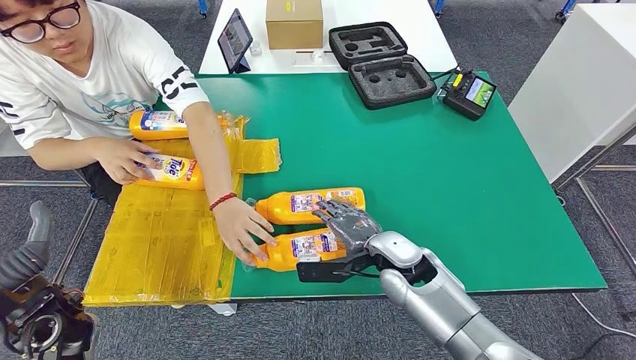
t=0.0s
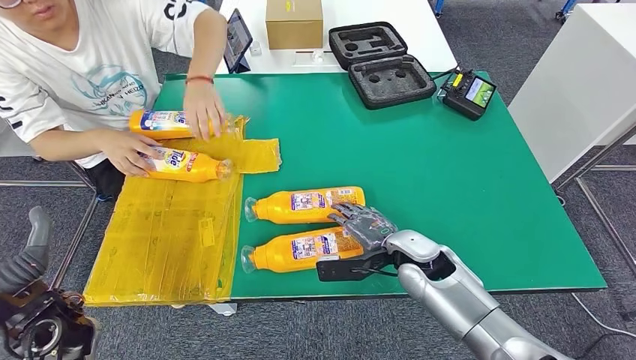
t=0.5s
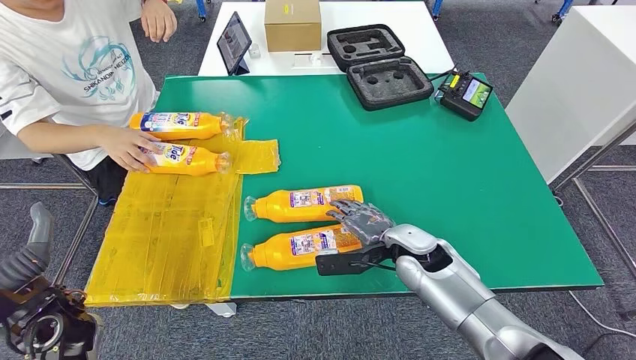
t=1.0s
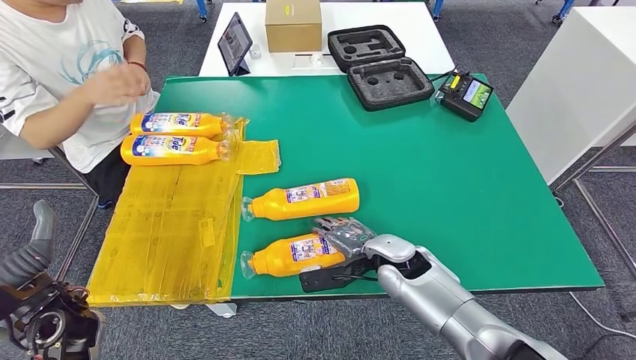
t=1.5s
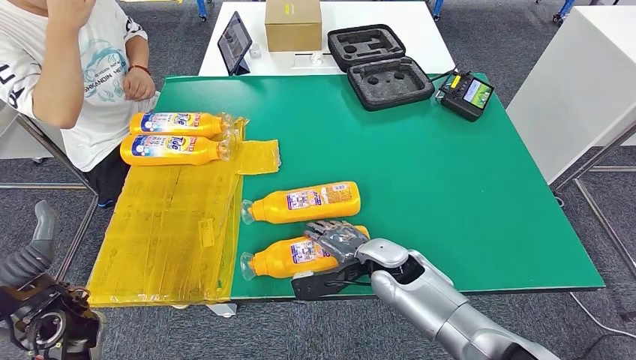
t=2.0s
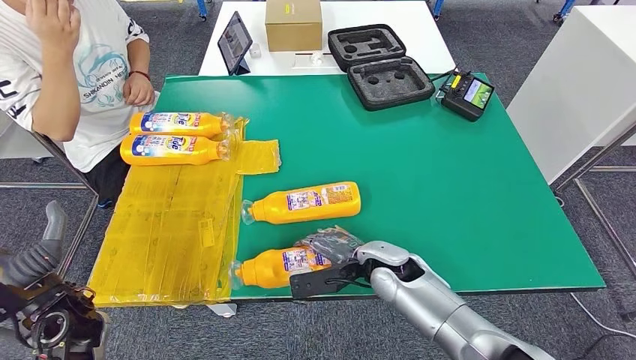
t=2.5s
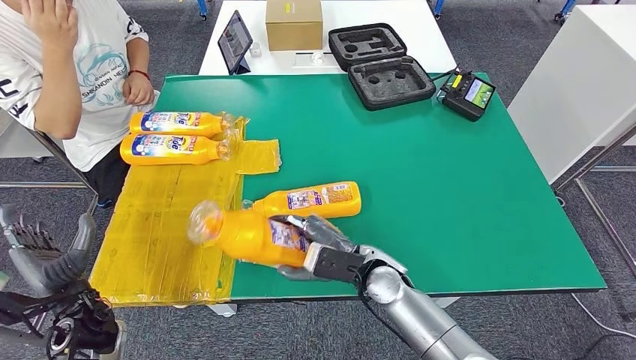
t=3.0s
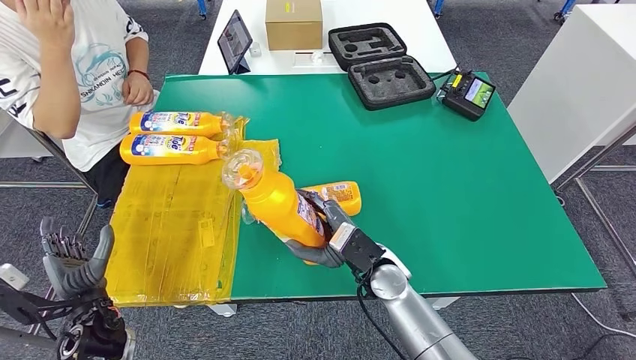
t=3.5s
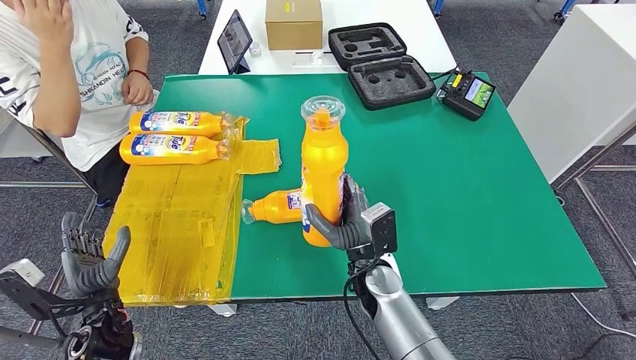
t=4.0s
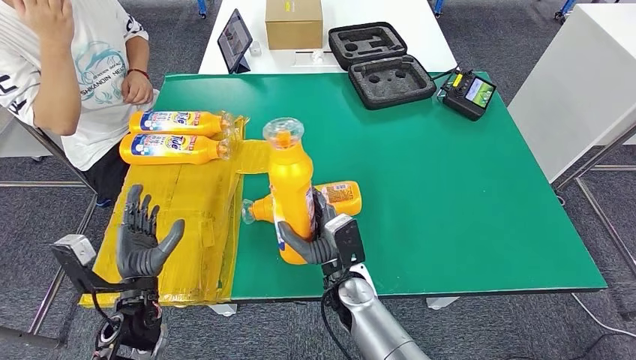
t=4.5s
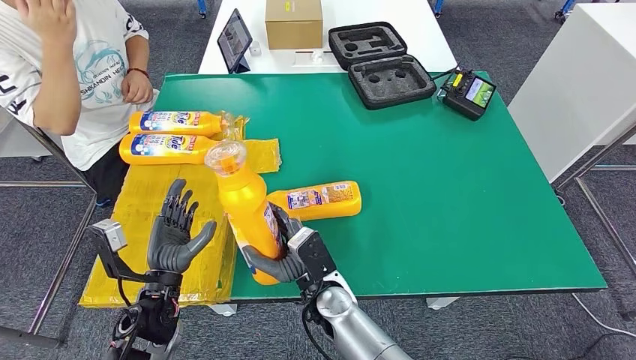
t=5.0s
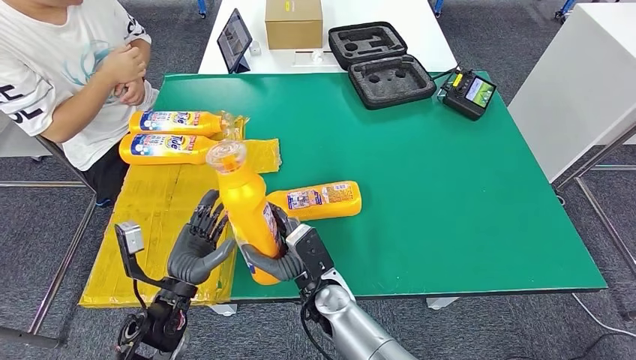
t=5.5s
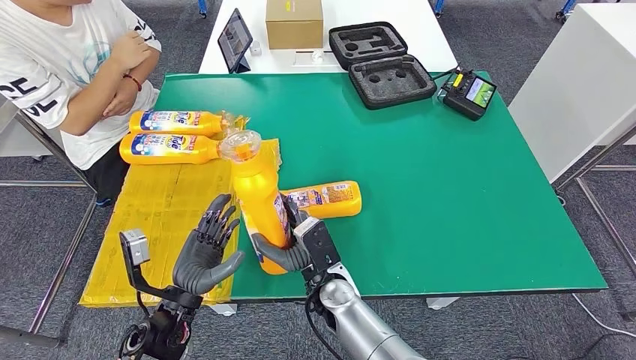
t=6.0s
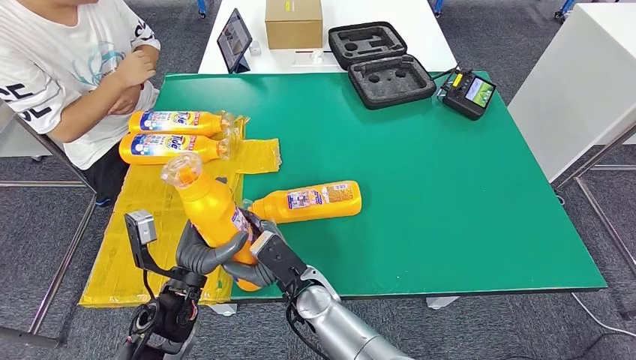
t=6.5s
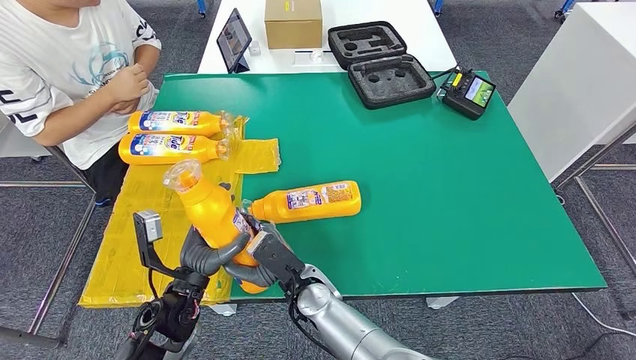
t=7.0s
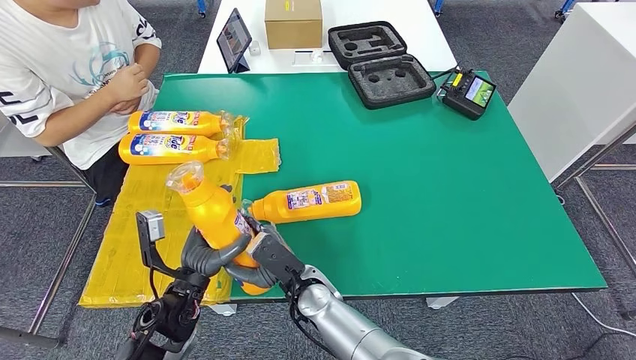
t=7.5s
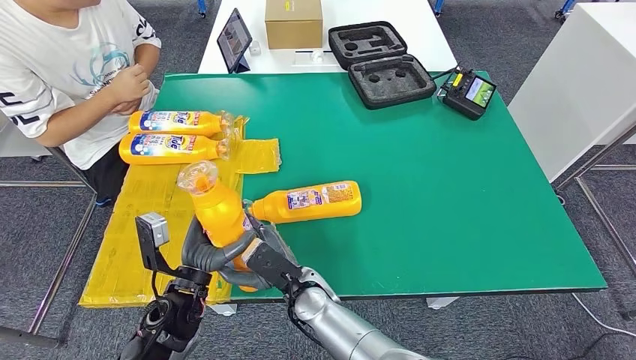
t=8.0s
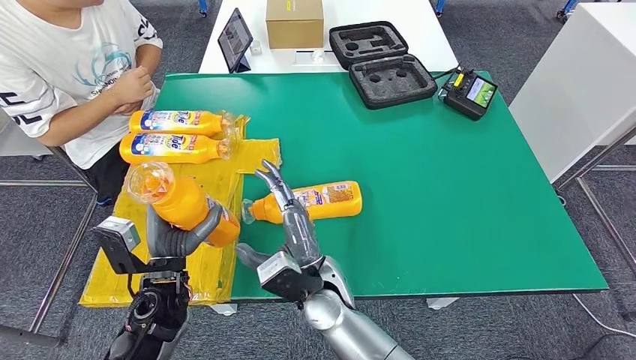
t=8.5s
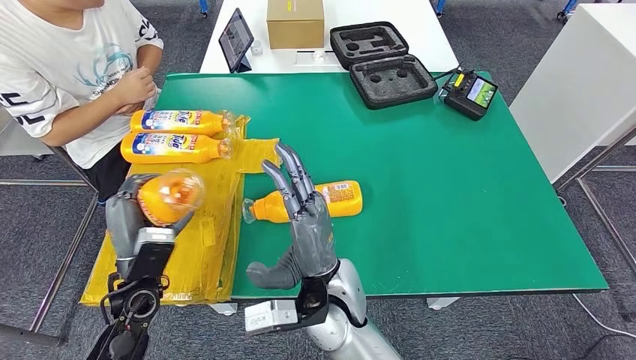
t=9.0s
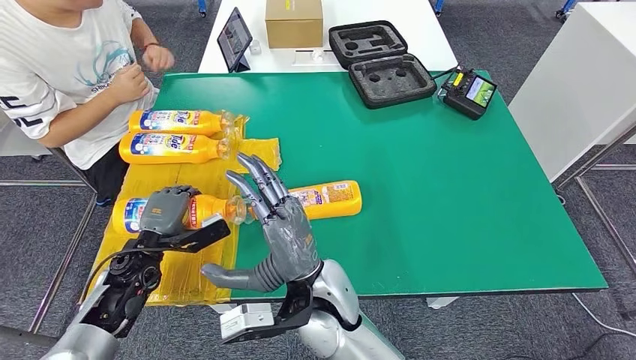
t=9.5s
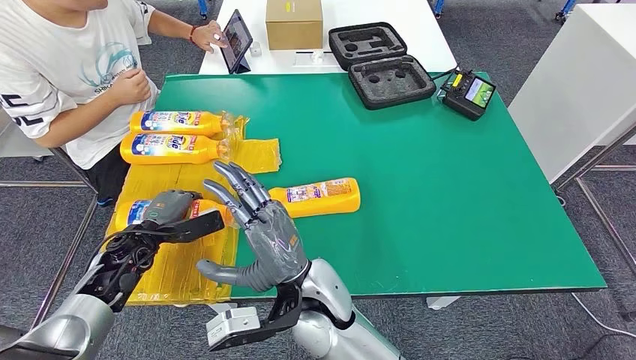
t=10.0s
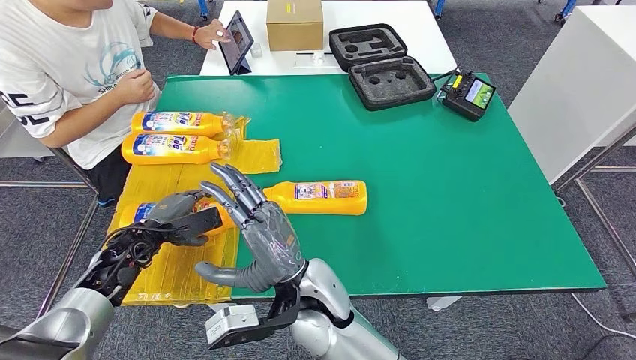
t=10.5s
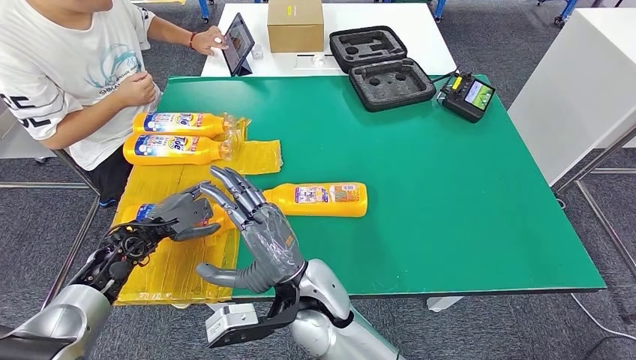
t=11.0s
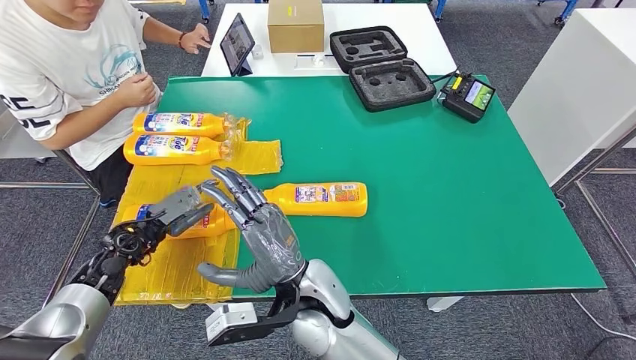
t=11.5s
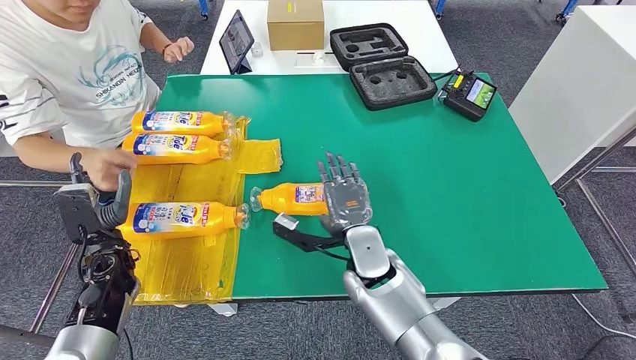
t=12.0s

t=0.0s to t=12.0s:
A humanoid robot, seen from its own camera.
Step, t=1.0s to t=3.5s: Pick up the fast-moving consumer goods bottle from the table.
Step, t=4.0s to t=12.0s: Flip the fast-moving consumer goods bottle to the front side.
t=6.0s to t=8.0s: The hands stay close to where they were, moving slightly.
t=8.0s to t=10.0s: The left hand heads to the left and forward, covering some 15 cm. The right hand shifts roughly 10 cm upward.

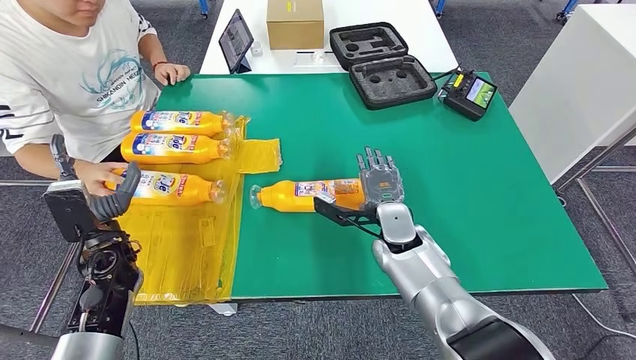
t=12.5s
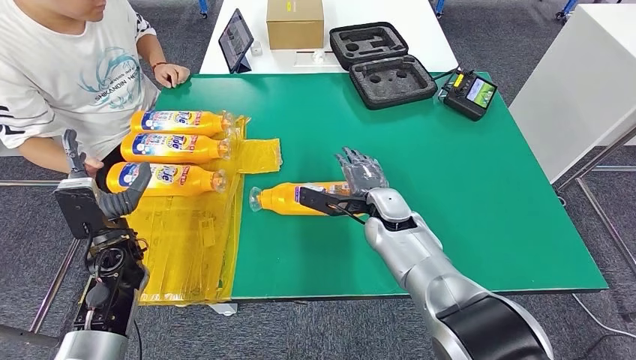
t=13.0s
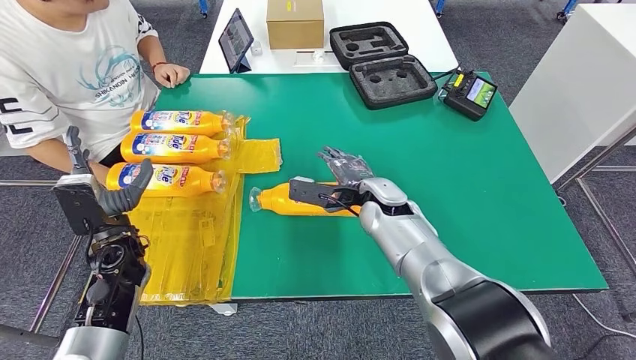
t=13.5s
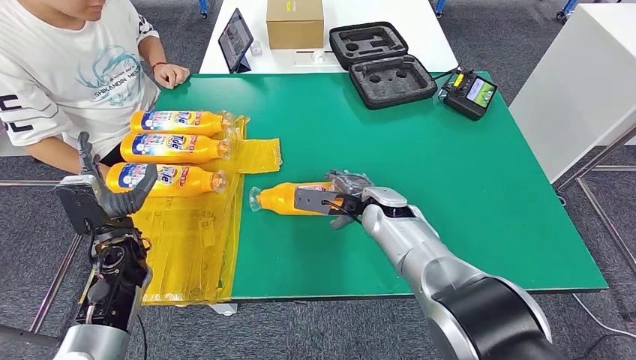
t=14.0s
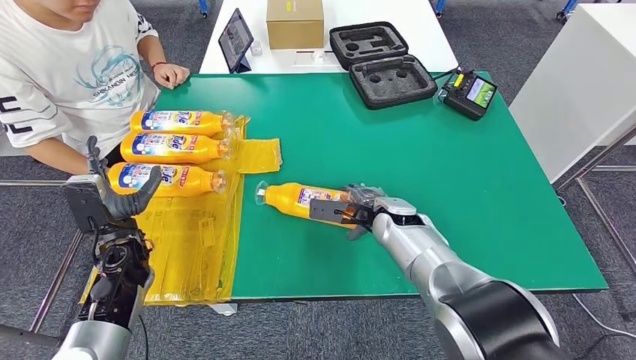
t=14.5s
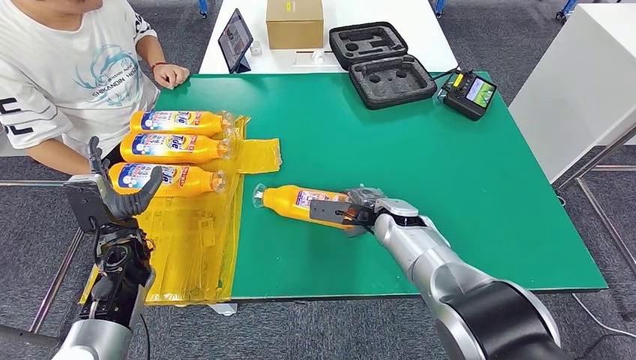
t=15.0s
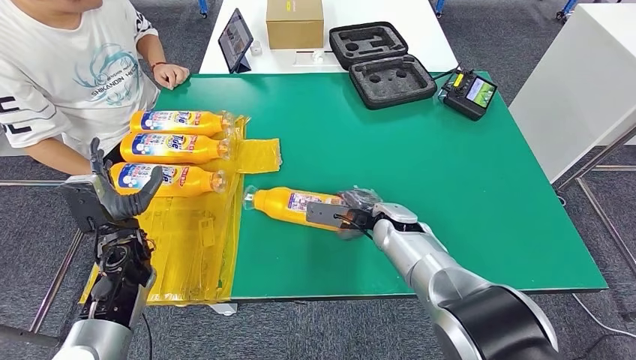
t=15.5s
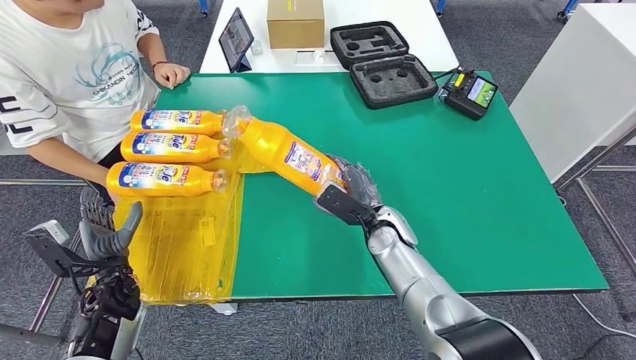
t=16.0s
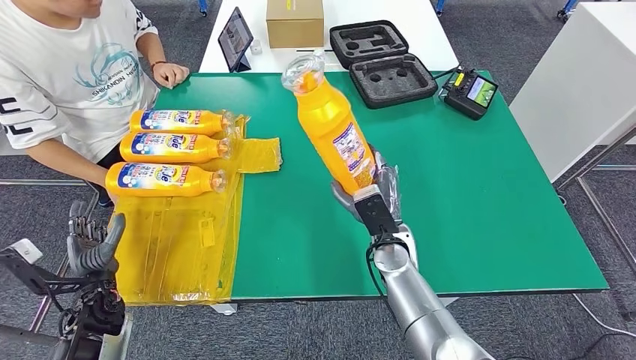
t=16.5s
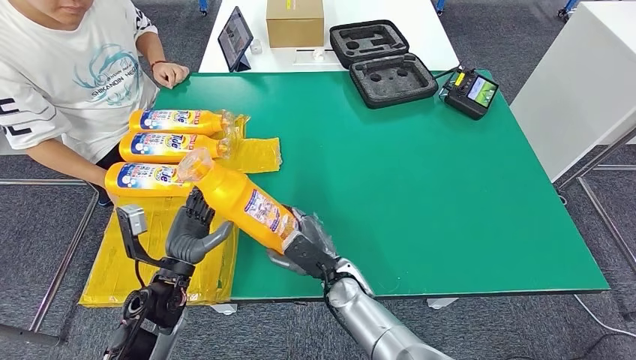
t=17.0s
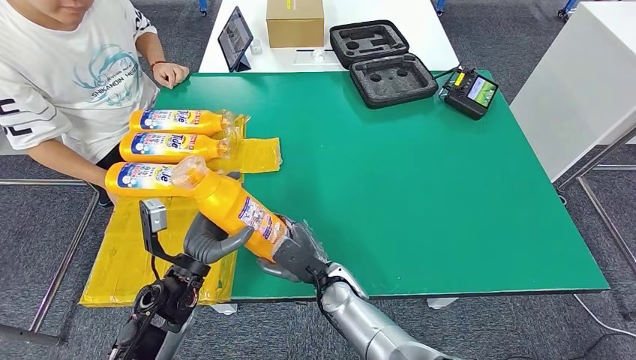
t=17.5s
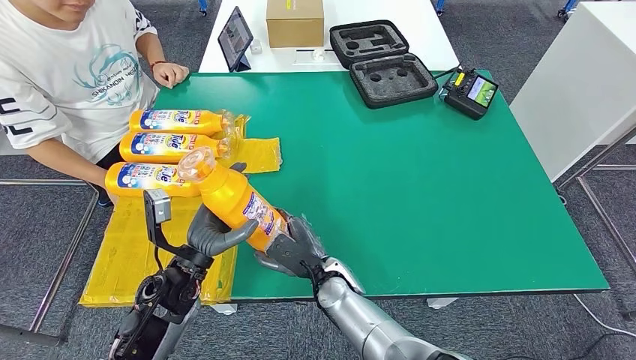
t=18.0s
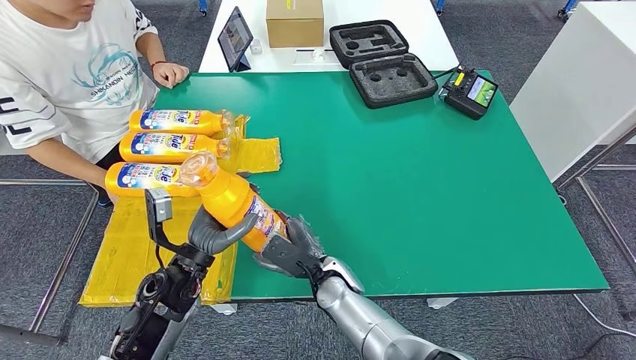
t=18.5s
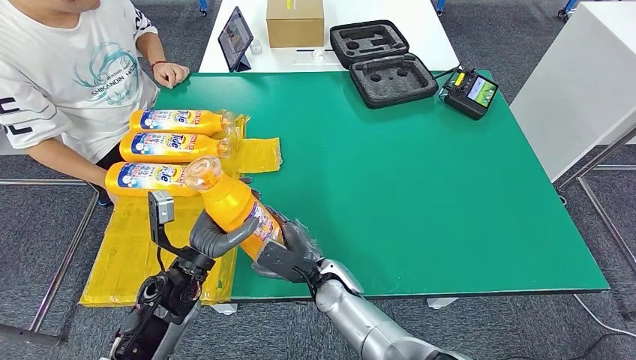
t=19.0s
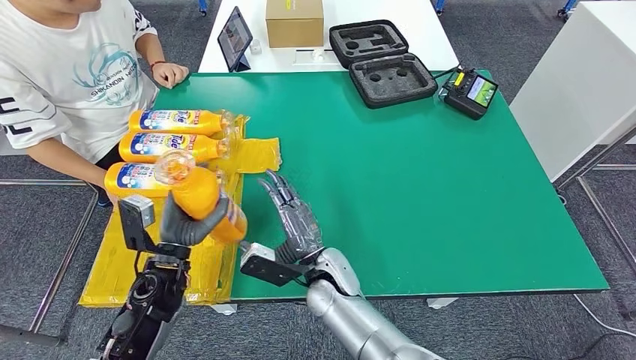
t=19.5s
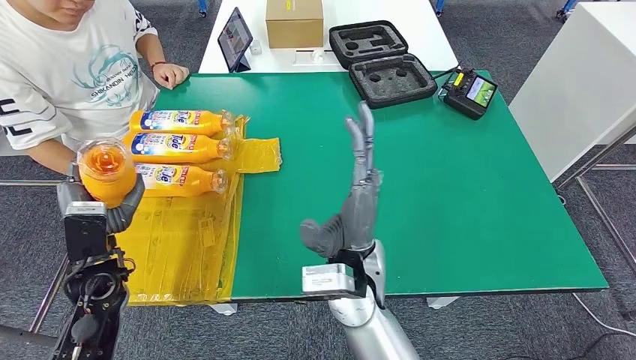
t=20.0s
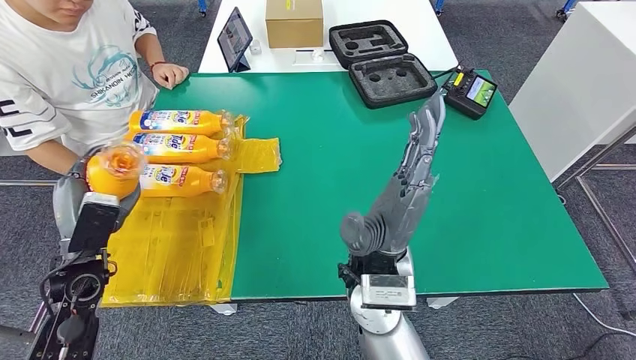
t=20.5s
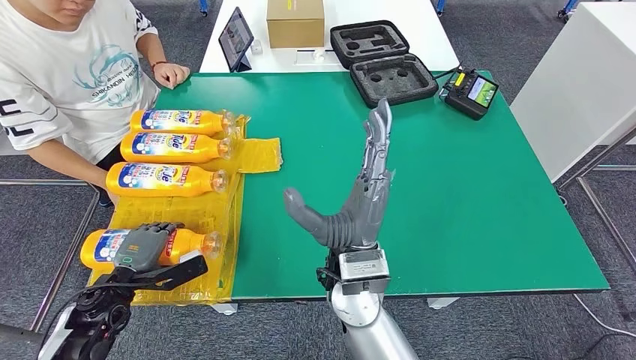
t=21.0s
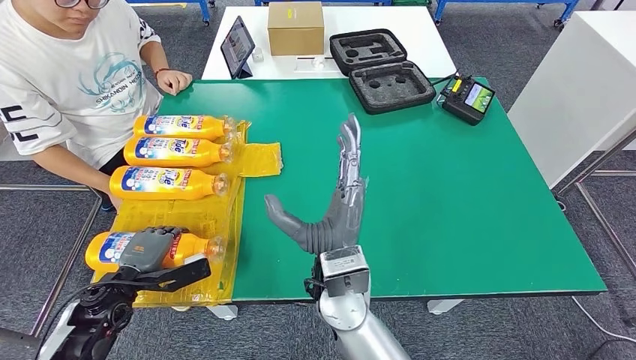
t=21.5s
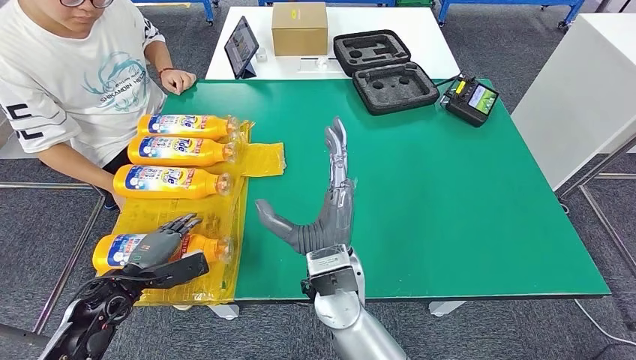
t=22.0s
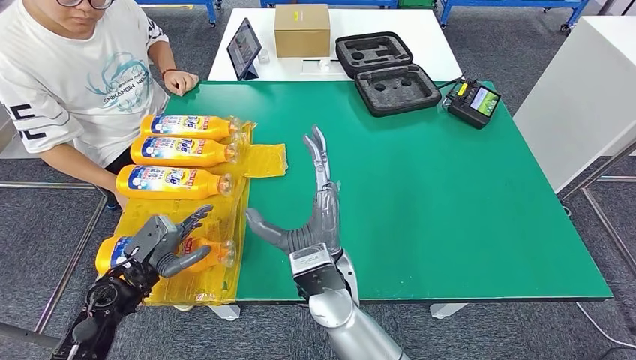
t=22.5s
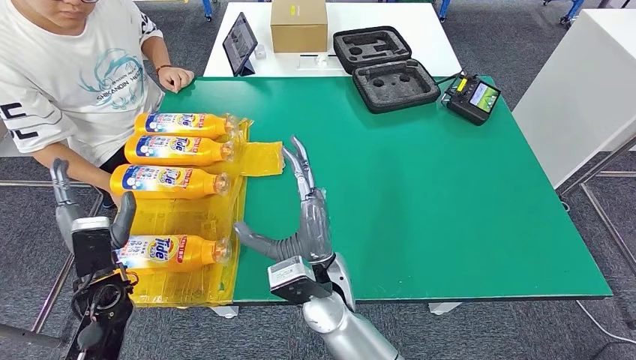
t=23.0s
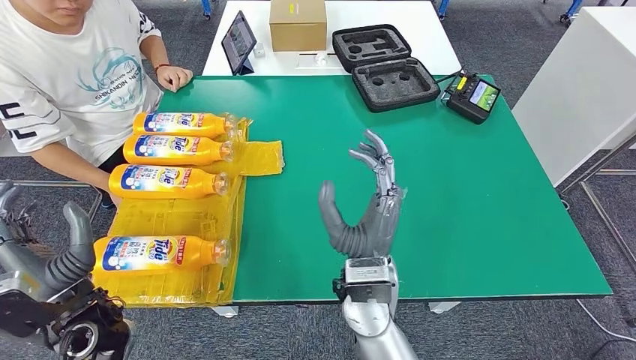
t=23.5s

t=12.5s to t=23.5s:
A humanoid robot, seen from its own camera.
Step, t=13.5s to t=16.0s: Pick up the fast-moving consumer goods bottle from the table.
Step, t=16.5s to t=23.5s: Flip the fast-moving consumer goods bottle to the front side.
t=14.5s to t=16.0s: The left hand travels downward and backward by some 10 cm.
t=18.0s to t=20.0s: The left hand heads to the left, covering approximately 10 cm, while the right hand goes some 15 cm upward.
